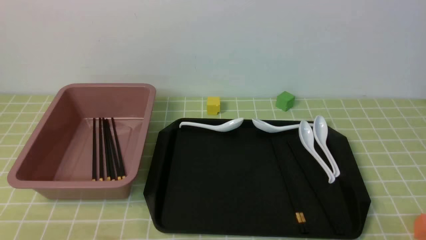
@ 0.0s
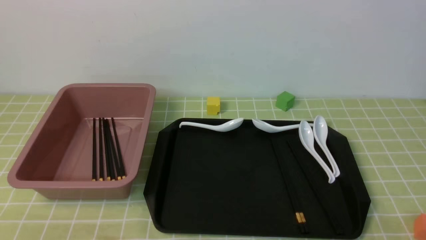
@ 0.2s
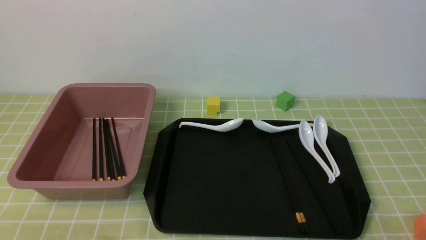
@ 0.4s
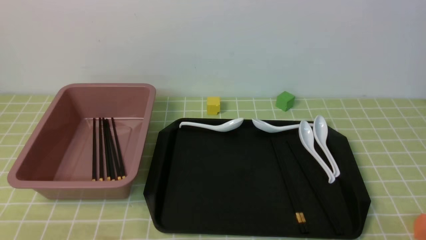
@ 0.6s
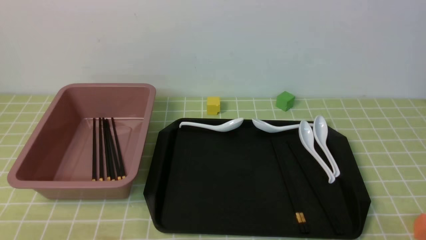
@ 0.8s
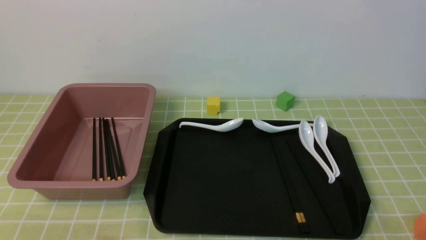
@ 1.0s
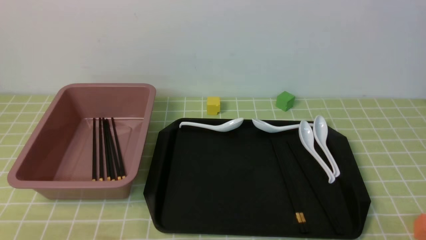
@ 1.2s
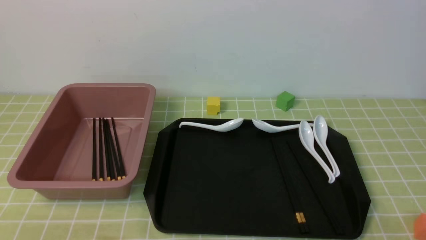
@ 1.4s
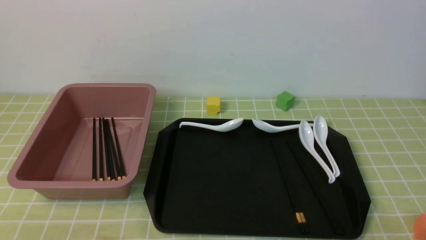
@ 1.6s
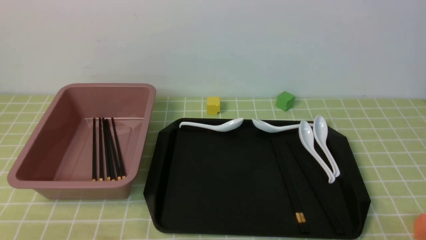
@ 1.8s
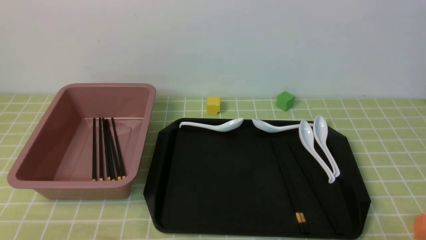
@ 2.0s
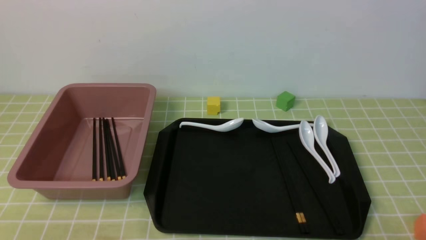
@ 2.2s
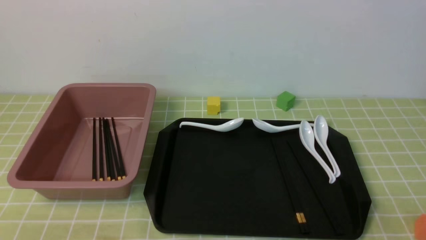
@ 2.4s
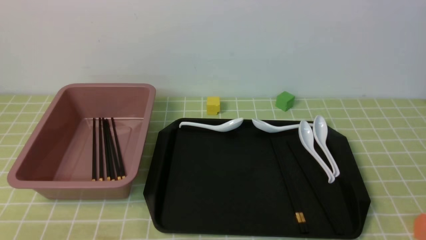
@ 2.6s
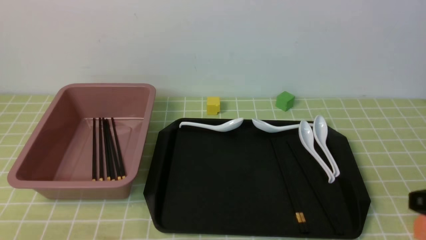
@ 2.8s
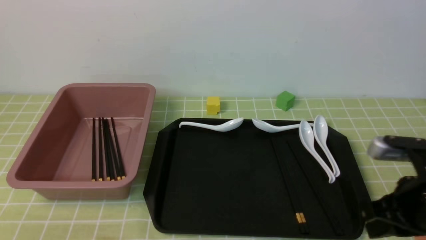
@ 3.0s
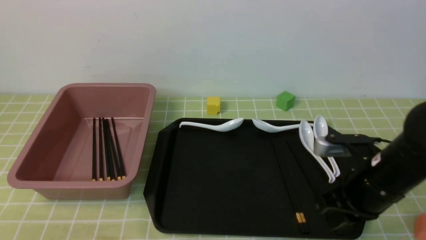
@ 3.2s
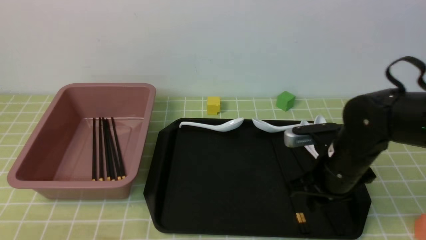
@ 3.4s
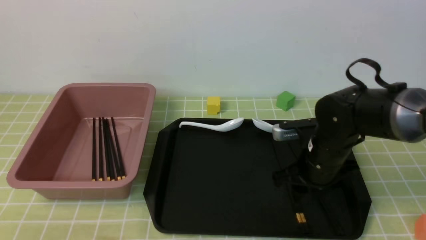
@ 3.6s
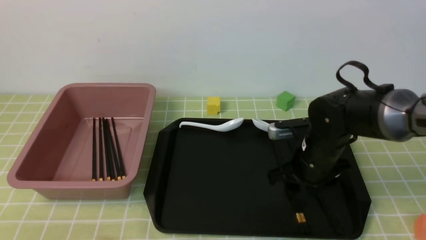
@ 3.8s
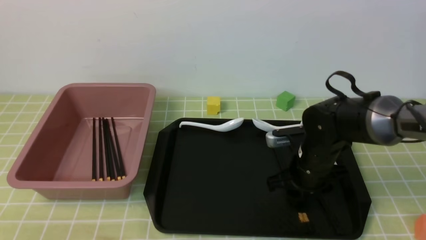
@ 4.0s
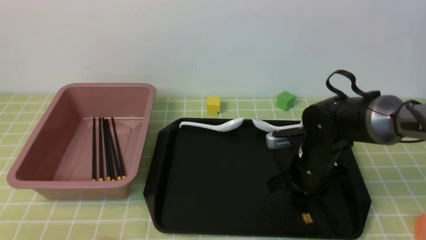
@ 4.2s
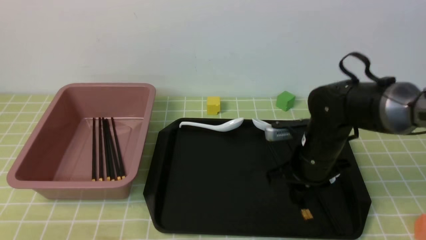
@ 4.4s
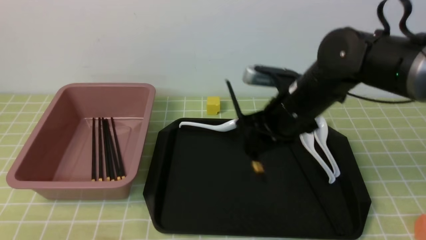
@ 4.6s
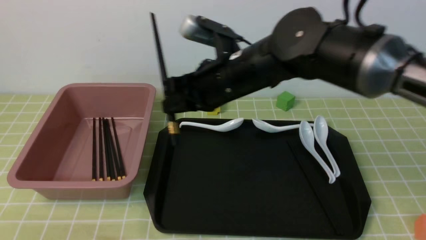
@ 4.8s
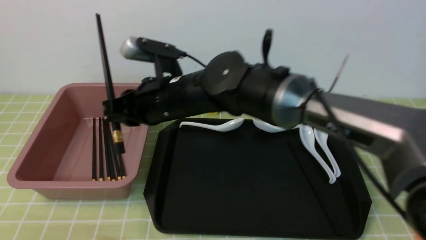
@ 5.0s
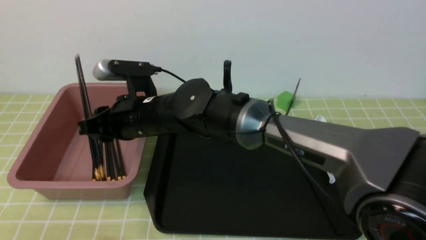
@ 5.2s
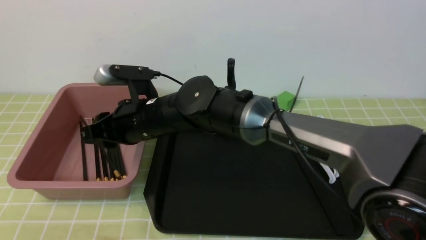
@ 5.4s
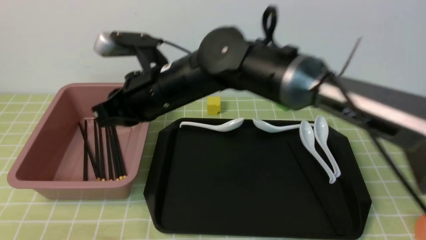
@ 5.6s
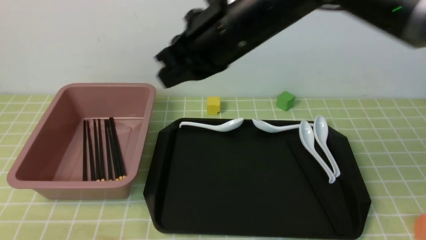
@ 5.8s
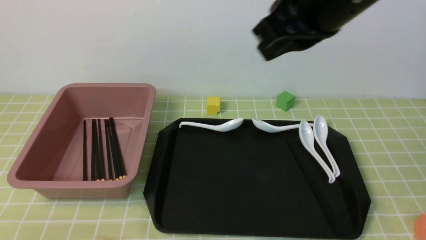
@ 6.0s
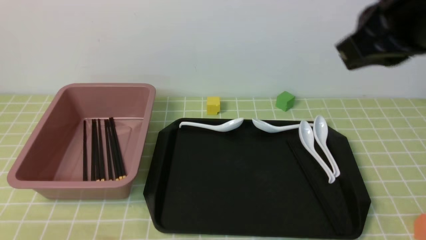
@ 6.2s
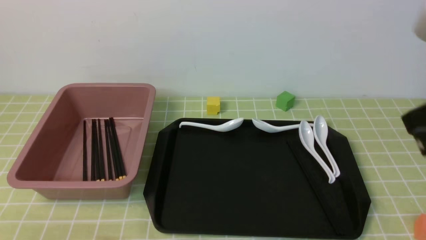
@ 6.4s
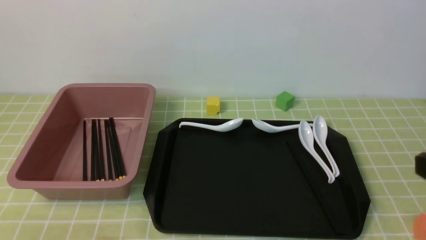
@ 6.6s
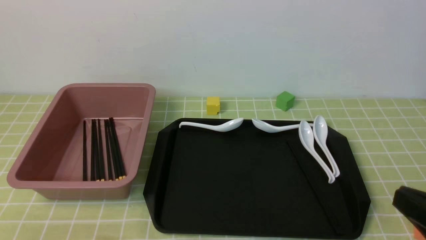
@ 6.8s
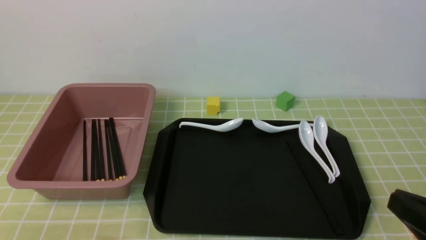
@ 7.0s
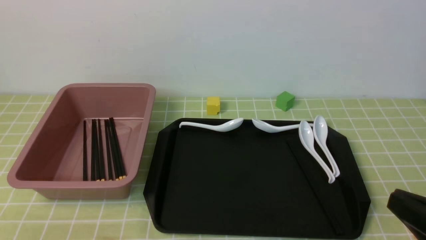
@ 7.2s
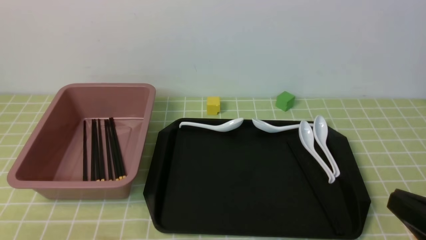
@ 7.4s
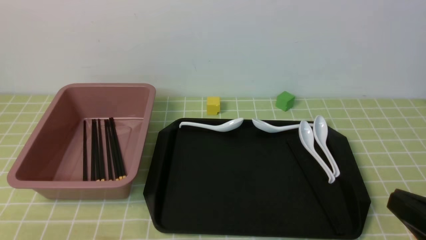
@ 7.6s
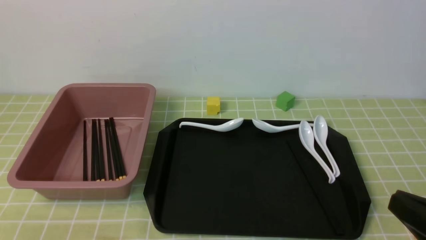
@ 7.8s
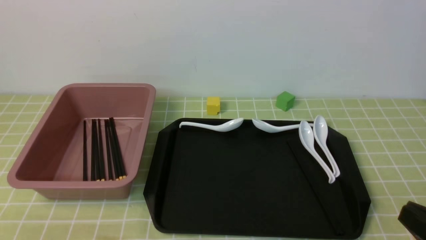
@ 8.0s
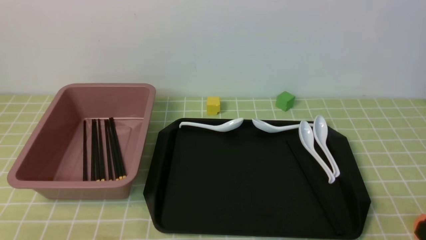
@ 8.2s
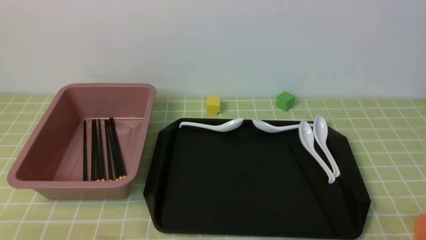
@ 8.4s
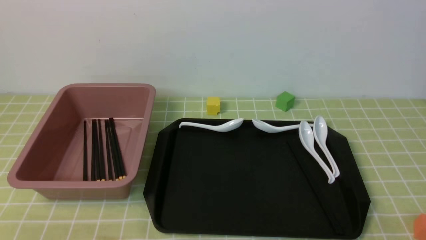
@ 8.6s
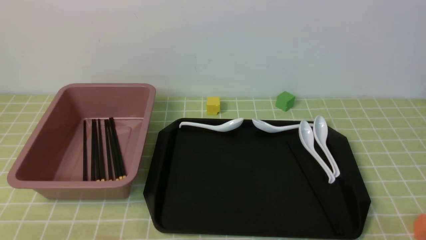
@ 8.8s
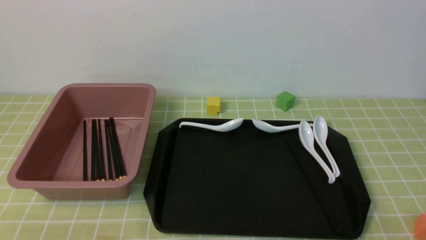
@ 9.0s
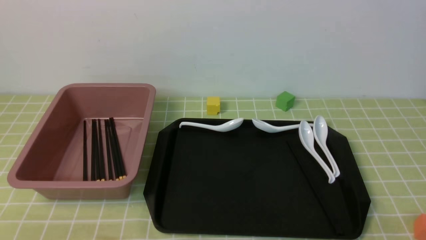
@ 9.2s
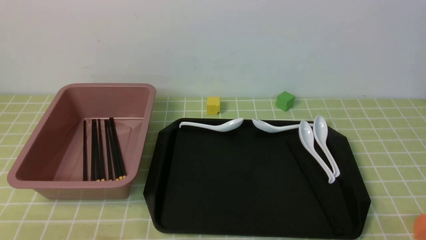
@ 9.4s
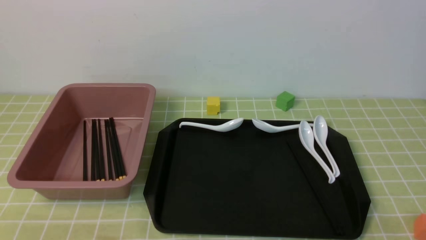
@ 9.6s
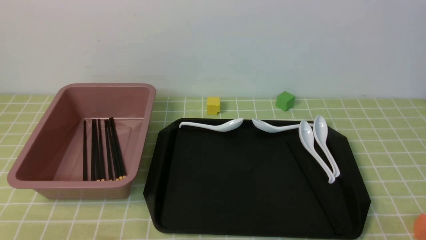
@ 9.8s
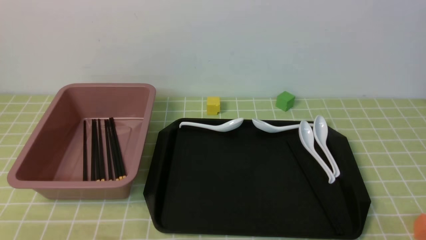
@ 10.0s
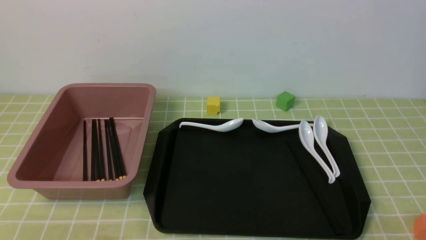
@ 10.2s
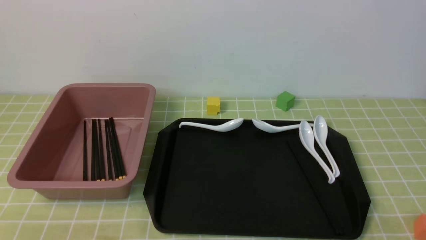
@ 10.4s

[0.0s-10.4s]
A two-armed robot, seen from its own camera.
Step, 0.0s to 4.4s: use the right arm to grab a pair of chopsticks.
Step, 4.6s to 5.6s: use the right arm to put the chopsticks into the lunch box.
0.0s to 1.4s: Both grippers stay put.
1.4s to 3.0s: The right gripper heads forward and upward, covering approximately 20 cm, and closes up.
3.0s to 4.4s: The right gripper shifts about 15 cm forward and to the left, and opens, then closes again.
4.4s to 6.0s: The right gripper moves up and down over approximately 25 cm, changing direction 2 times, and closes.
6.0s to 7.4s: The right gripper travels downward, backward and to the right by approximately 30 cm.
7.4s to 9.0s: The right gripper is displaced downward by some 10 cm.
9.0s to 10.4s: Both grippers stay about where they are.
